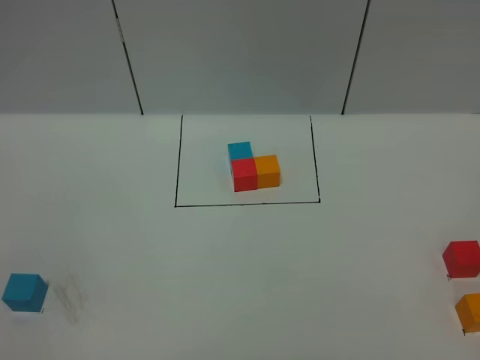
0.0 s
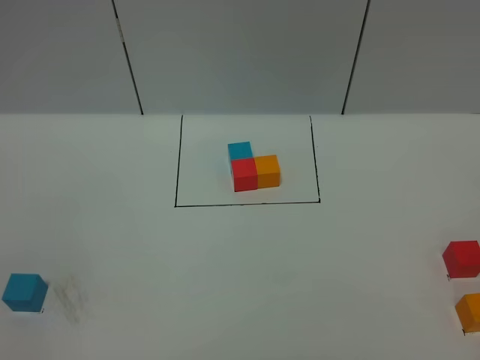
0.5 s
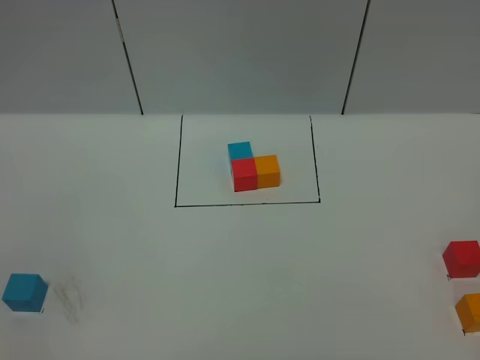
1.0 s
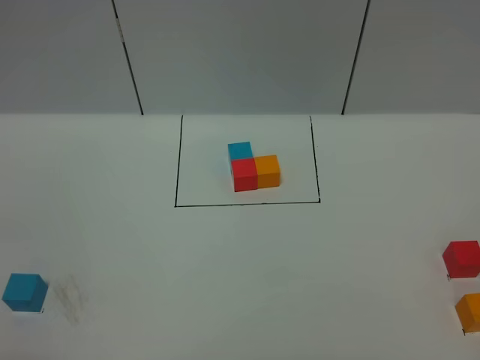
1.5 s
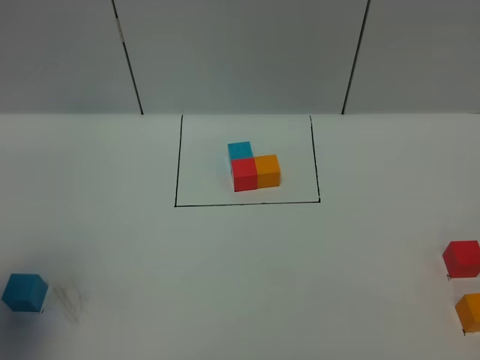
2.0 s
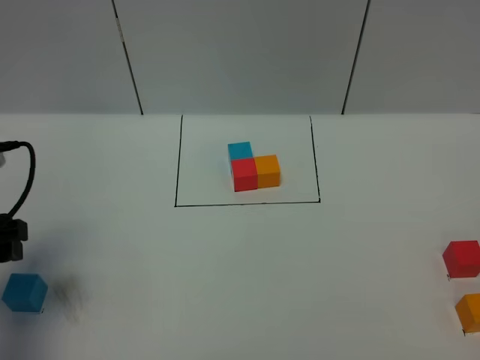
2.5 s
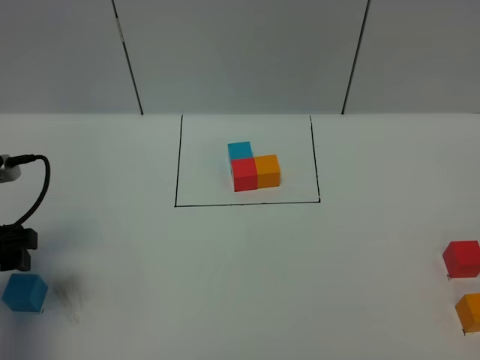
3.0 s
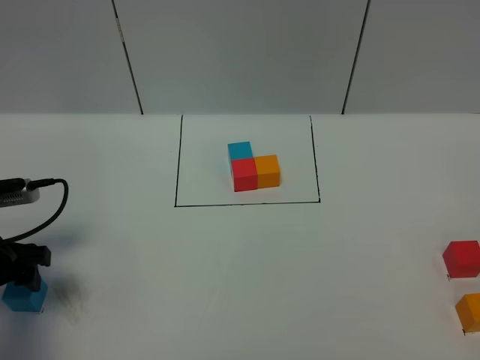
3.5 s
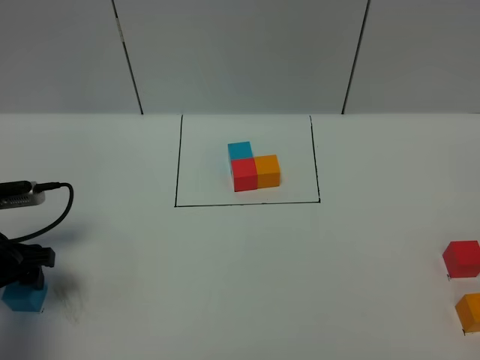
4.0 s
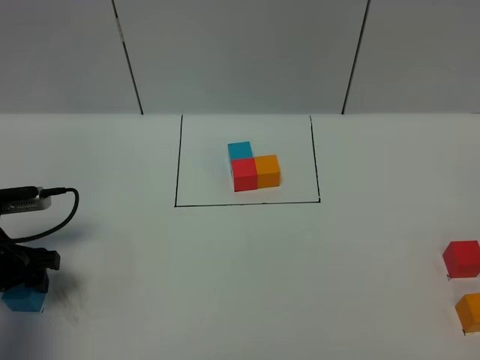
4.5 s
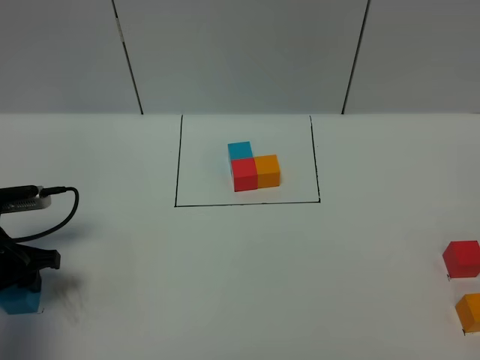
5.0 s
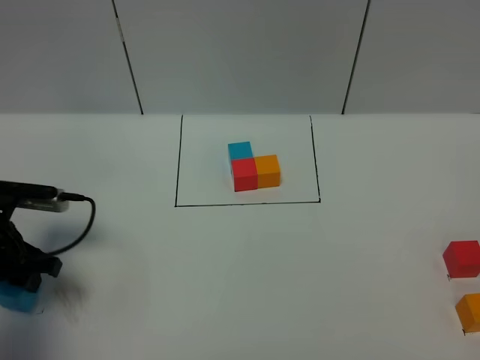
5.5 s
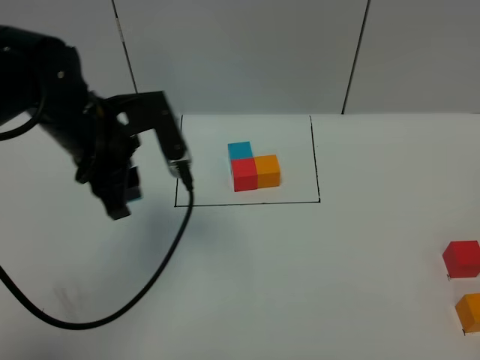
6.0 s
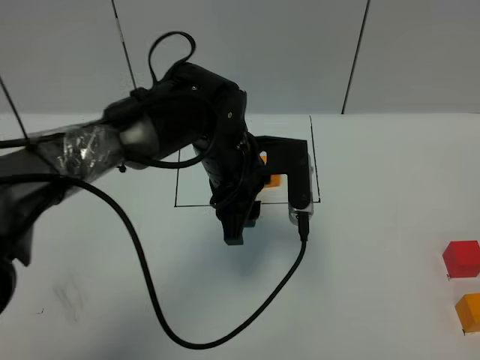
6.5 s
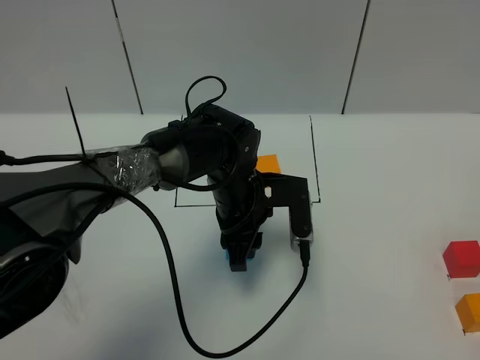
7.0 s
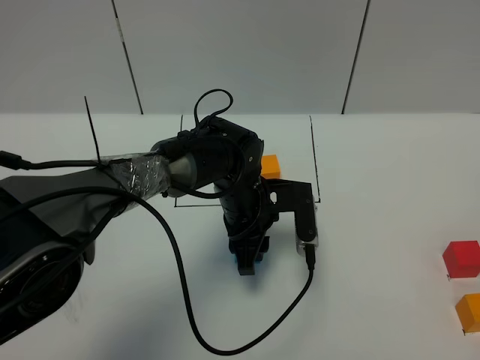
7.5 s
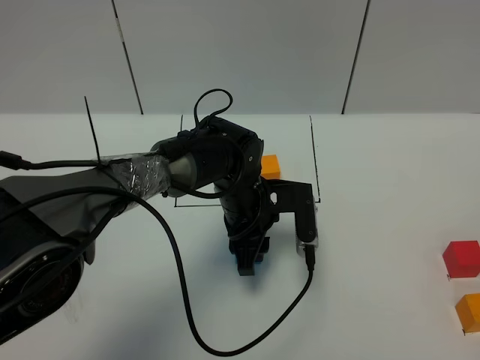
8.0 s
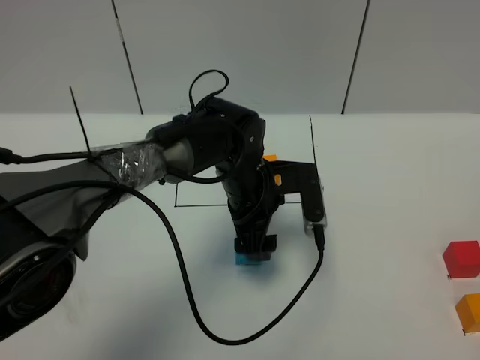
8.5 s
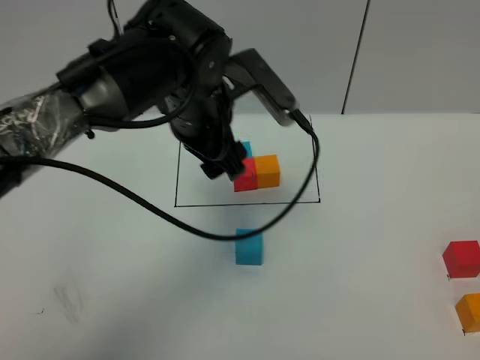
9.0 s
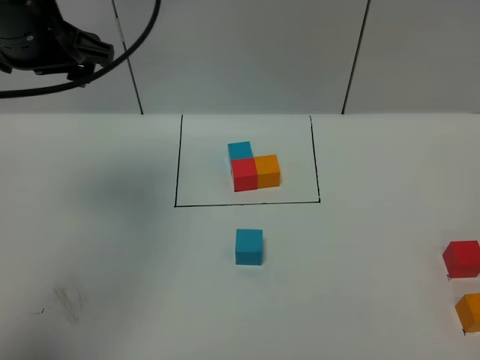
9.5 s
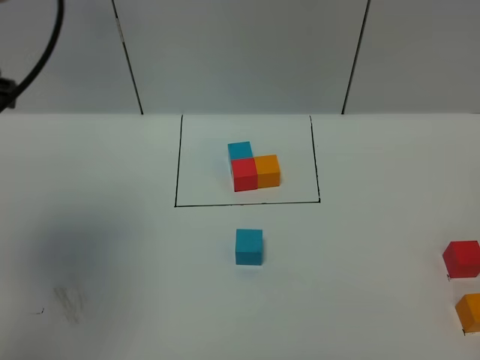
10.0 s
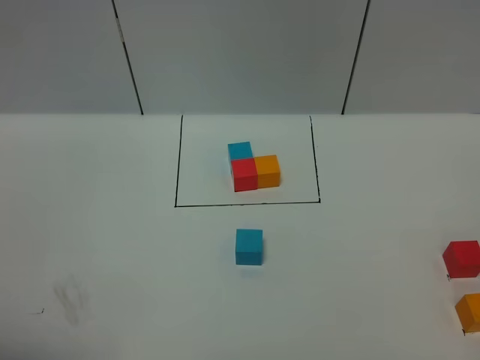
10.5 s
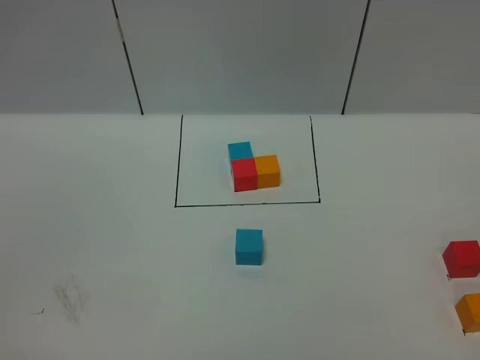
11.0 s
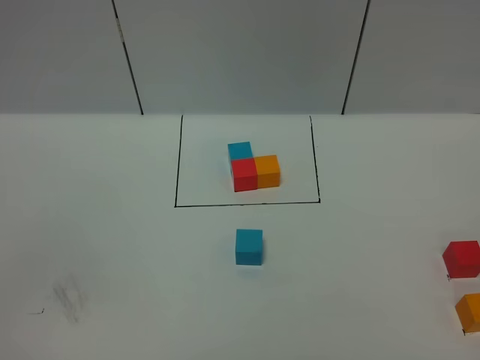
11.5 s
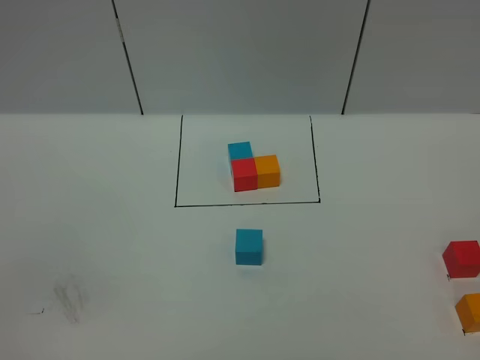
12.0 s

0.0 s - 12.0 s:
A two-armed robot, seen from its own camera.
Task of the whole recording: According to the building block template in front, assemble the scattered blocks together.
Step, 2.5 s - 8.0 s: Put the blue cube in the center of the table.
0.0 s - 2.0 s: The left gripper is displaced forward by about 20 cm.
2.0 s - 4.0 s: The left gripper moves downward and forward, roughly 20 cm, and opens.
4.0 s - 6.0 s: The left gripper travels to the right and upward by about 20 cm, and closes.
6.0 s - 8.0 s: The left gripper heads downward and to the right, covering about 20 cm.
8.0 s - 10.0 s: The left gripper goes approximately 40 cm upward, to the left and backward, and opens.
10.0 s - 12.0 s: The left gripper travels backward and downward by some 30 cm.

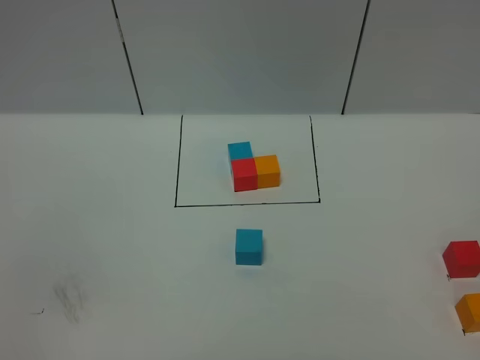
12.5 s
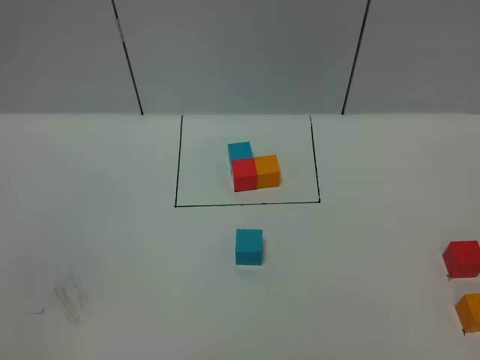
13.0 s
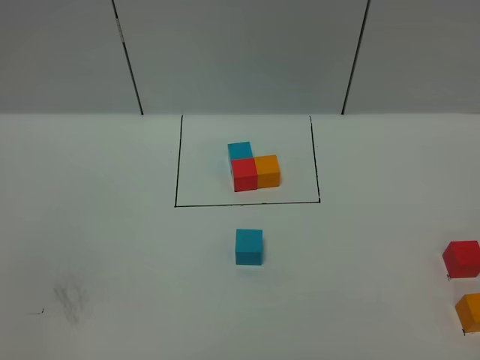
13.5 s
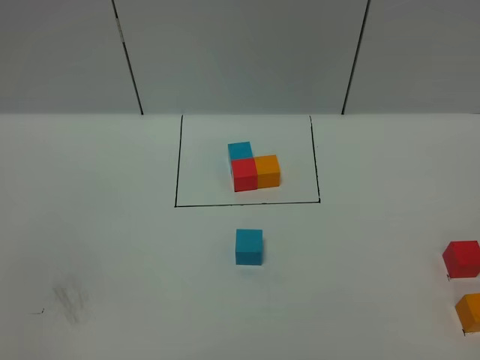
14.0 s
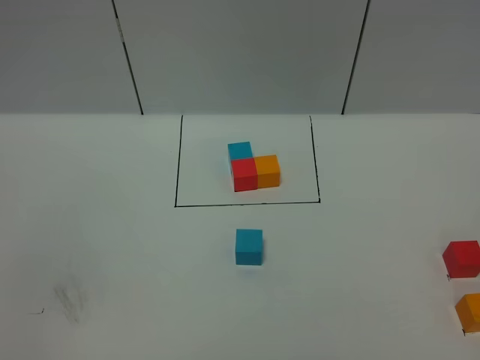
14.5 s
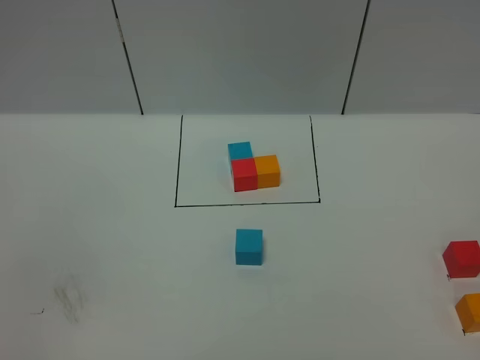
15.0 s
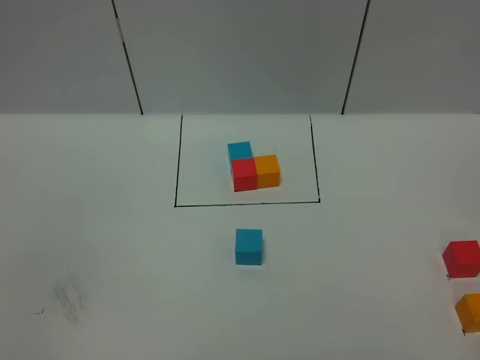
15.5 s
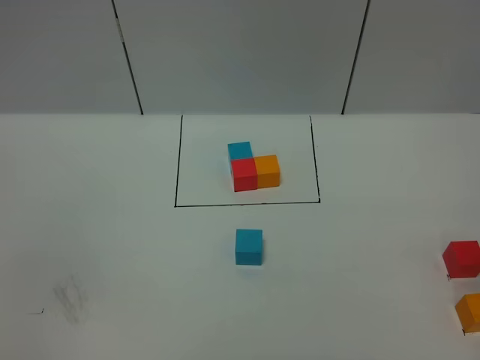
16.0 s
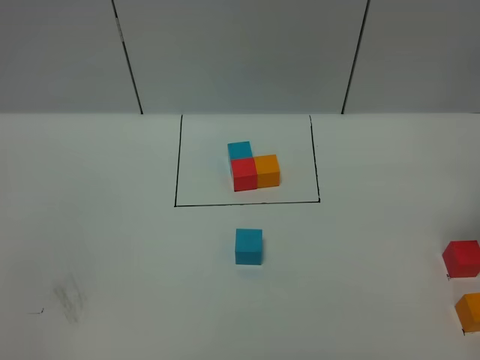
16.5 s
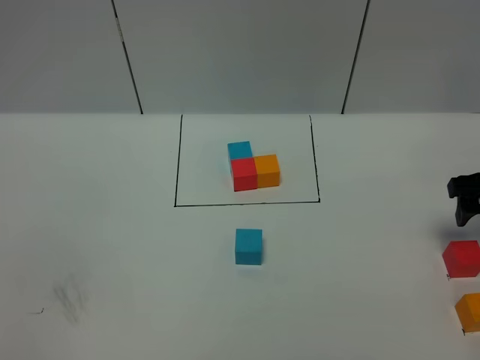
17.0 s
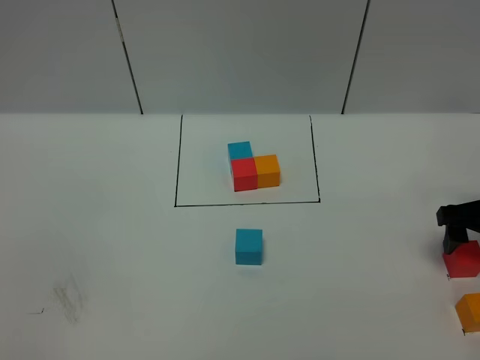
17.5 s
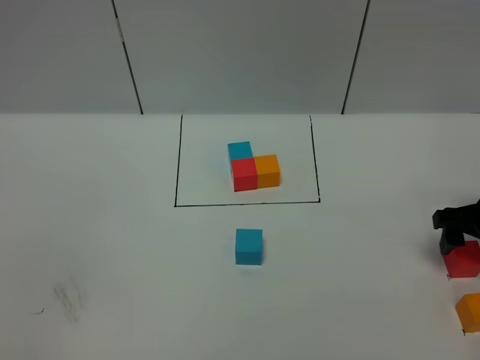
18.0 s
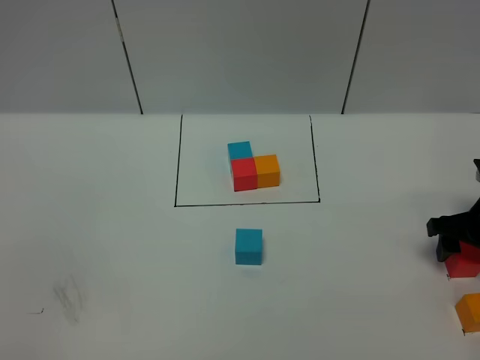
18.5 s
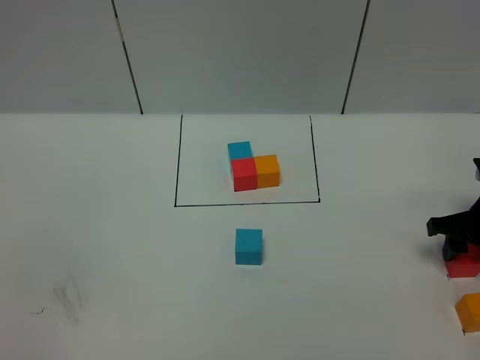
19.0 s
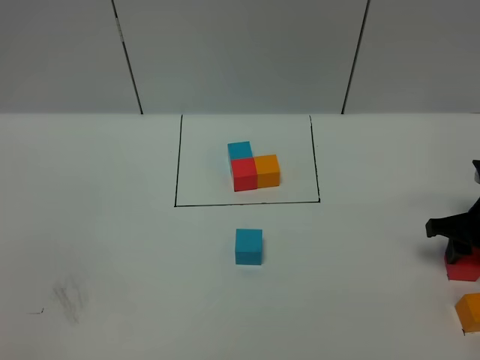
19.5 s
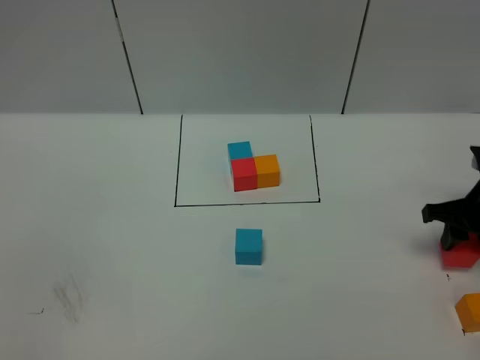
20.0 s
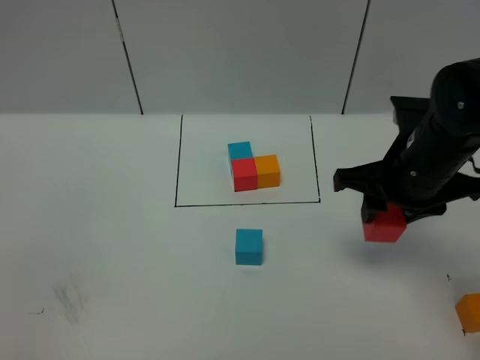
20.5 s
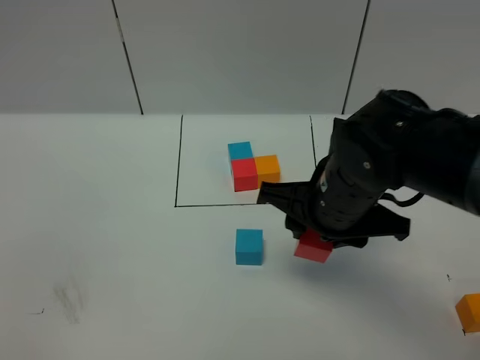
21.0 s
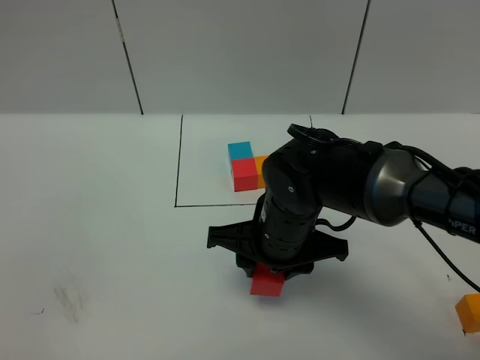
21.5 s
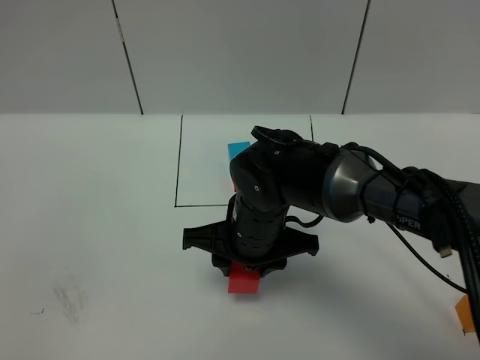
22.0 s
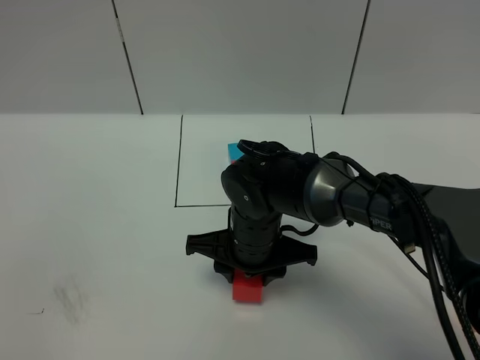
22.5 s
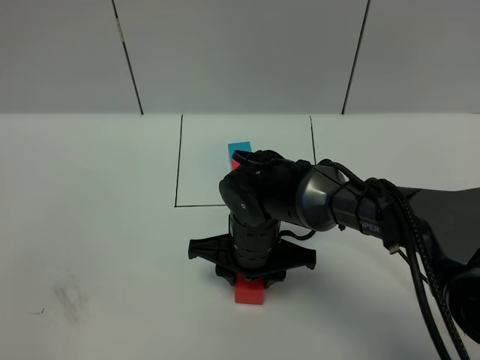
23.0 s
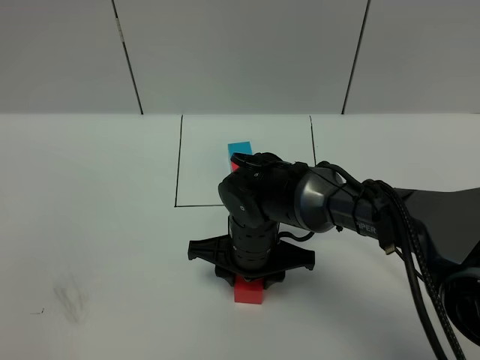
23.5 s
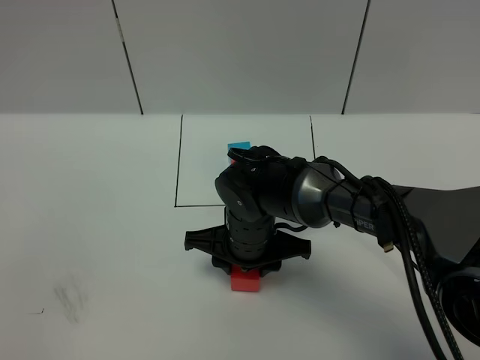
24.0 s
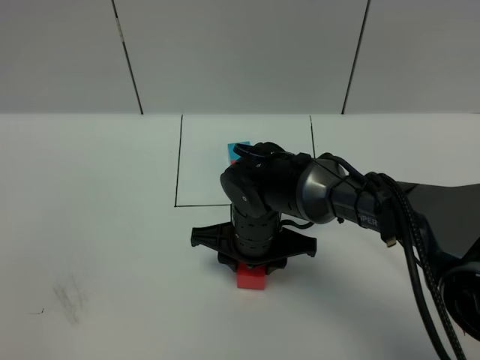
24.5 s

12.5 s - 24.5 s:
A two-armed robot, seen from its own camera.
Task of the whole recording: According to the building block template in front, assemble the scattered blocks together.
12.5 s - 14.5 s: Neither gripper changes place.
16.5 s - 18.5 s: The right gripper heads downward, covering some 15 cm.
18.5 s - 20.5 s: The right gripper goes about 20 cm to the left and upward, and closes up.
20.5 s - 22.5 s: The right gripper moves to the left and downward, approximately 20 cm.
22.5 s - 24.5 s: The grippers move only a little.

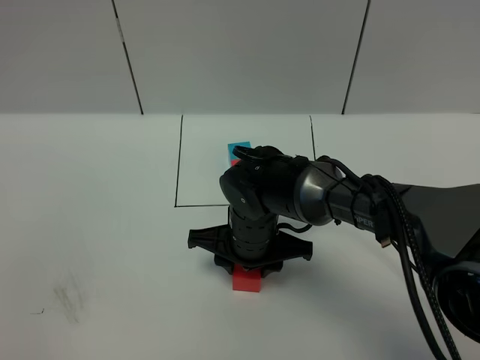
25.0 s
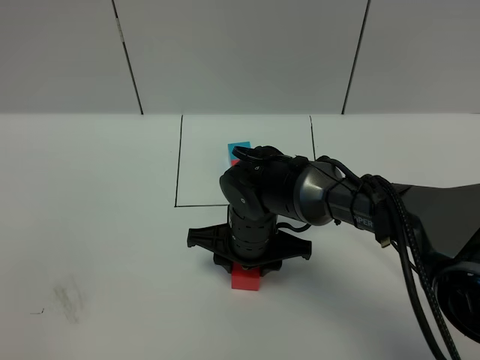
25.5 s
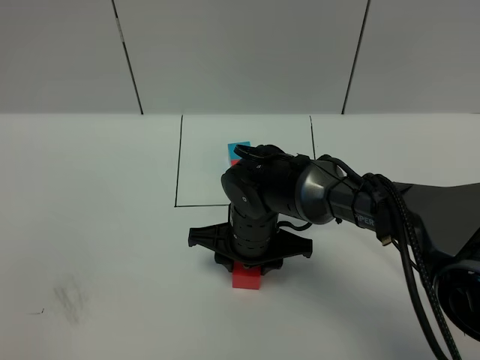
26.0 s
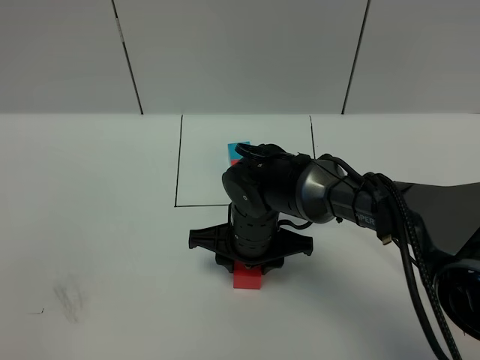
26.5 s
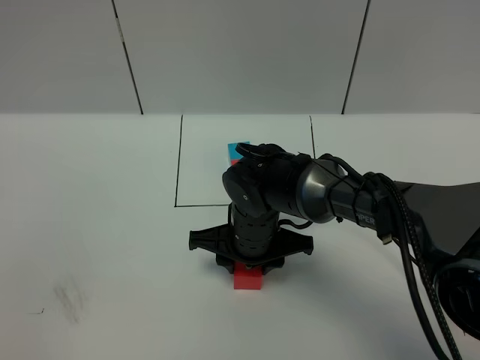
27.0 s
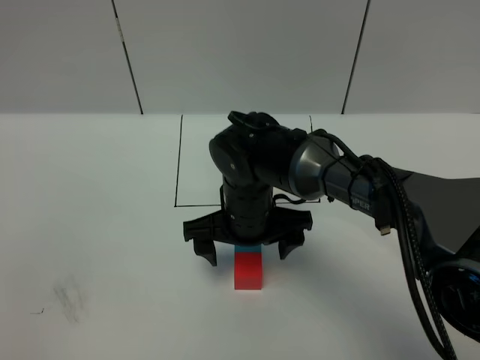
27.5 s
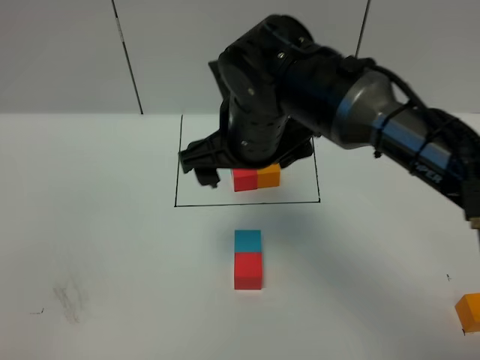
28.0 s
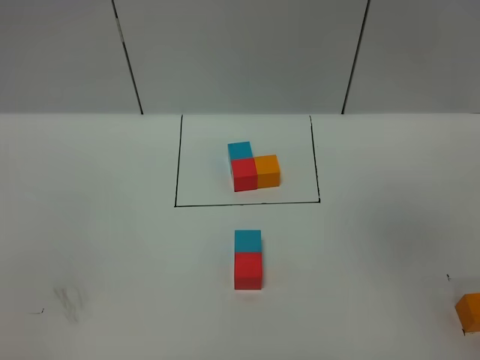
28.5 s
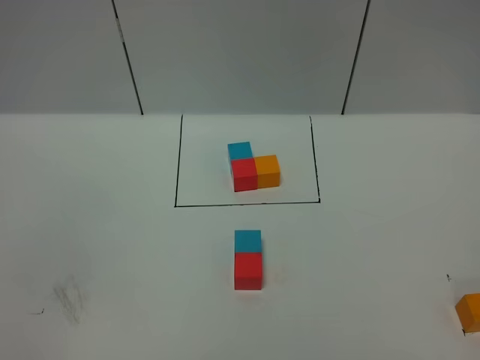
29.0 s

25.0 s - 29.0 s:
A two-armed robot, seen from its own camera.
Task of the whole recording: According to the building block template in front, assemble the scattered blocks together.
Step, 25.0 s - 27.0 s: Put the red cube in the front of the blue cube.
25.0 s - 27.0 s: Both grippers stay put.
27.0 s - 29.0 s: The right gripper moves upward, to the right and backward, approximately 60 cm, and opens, then closes again.
